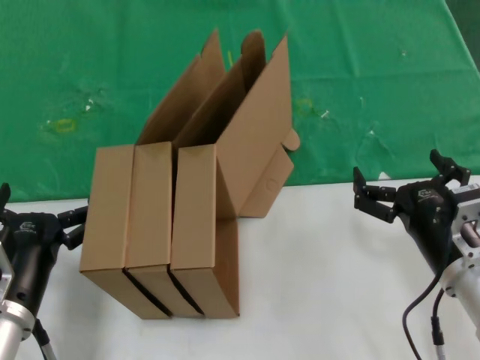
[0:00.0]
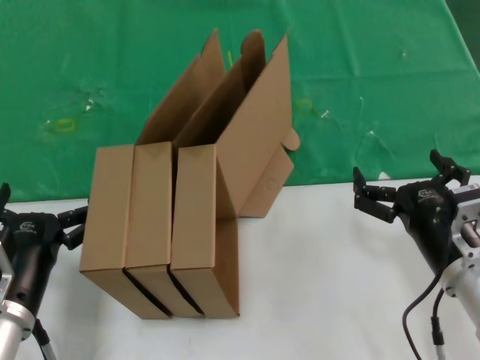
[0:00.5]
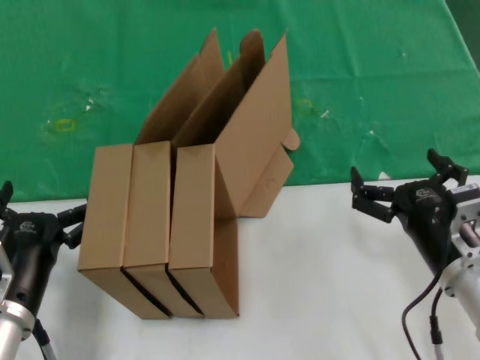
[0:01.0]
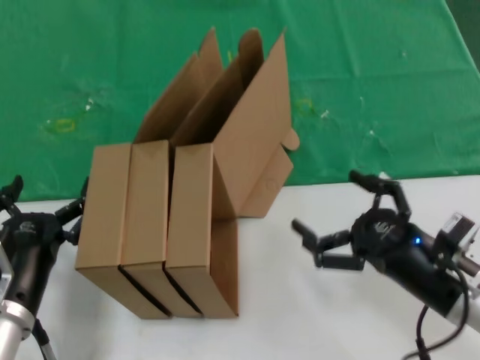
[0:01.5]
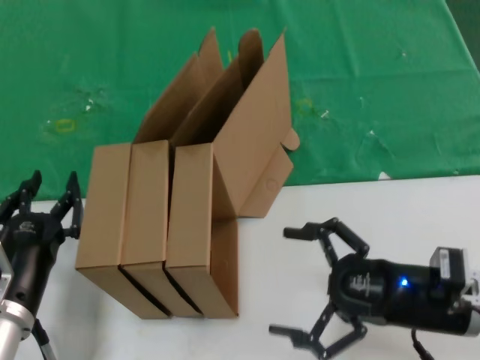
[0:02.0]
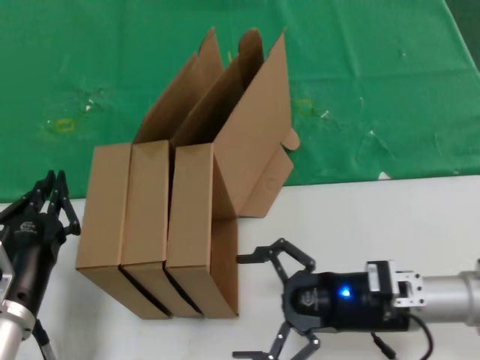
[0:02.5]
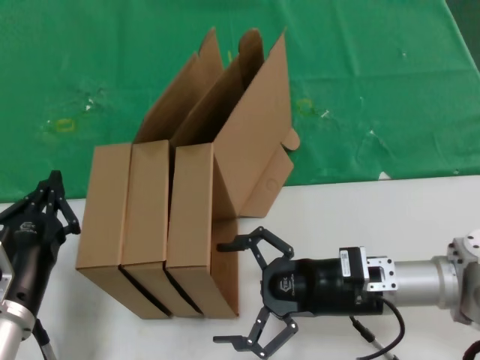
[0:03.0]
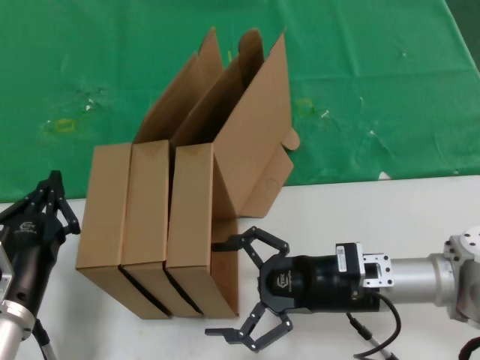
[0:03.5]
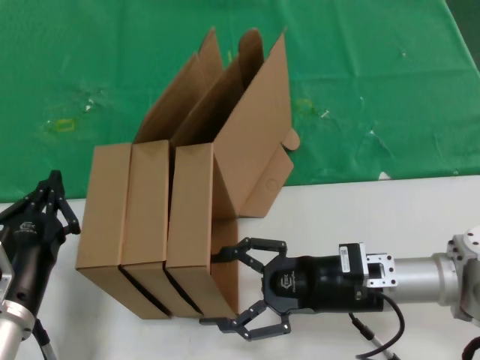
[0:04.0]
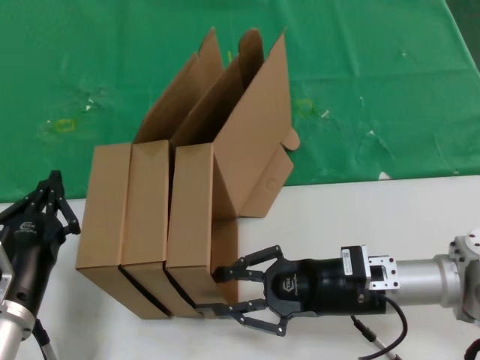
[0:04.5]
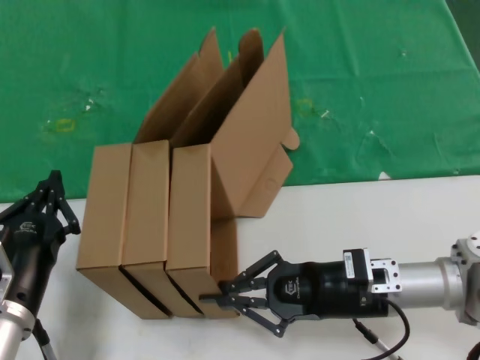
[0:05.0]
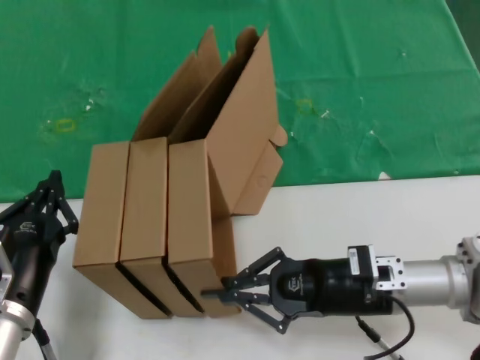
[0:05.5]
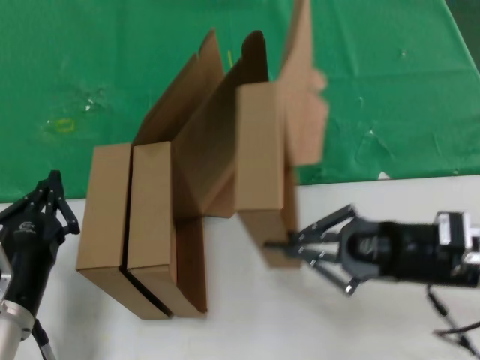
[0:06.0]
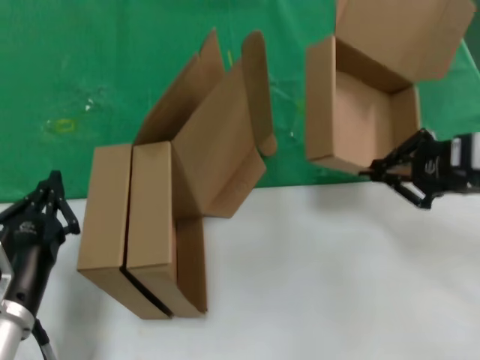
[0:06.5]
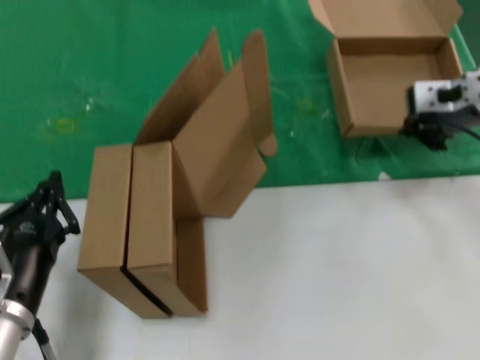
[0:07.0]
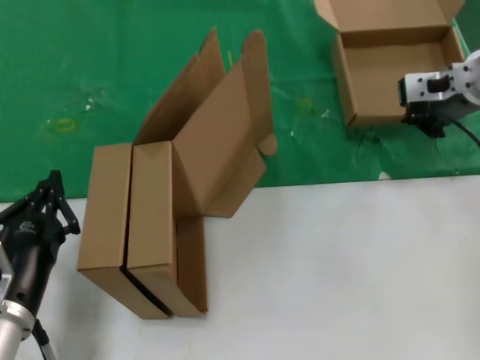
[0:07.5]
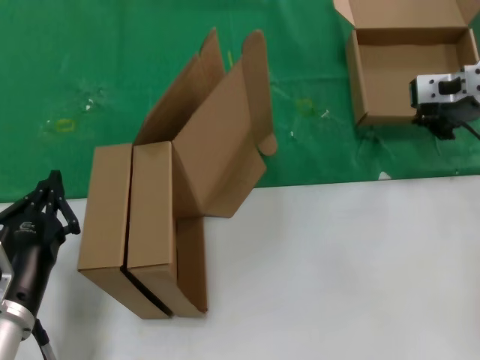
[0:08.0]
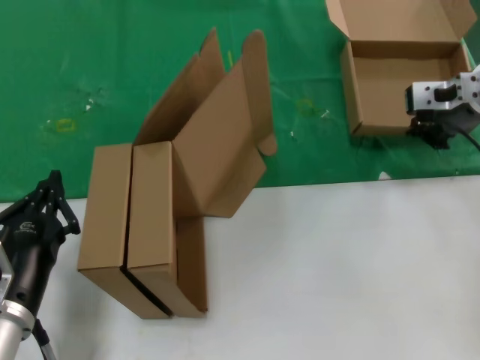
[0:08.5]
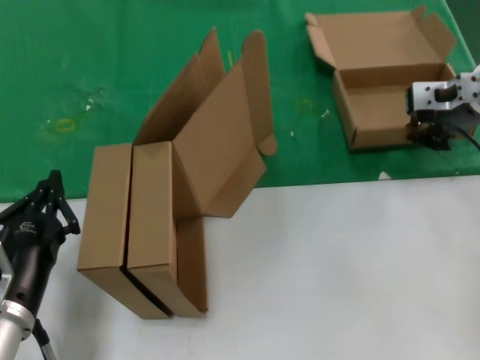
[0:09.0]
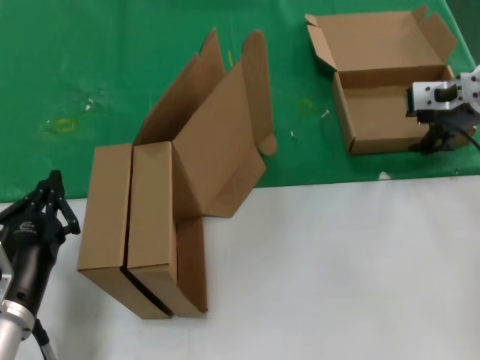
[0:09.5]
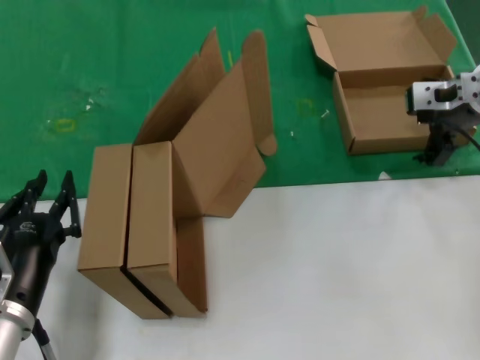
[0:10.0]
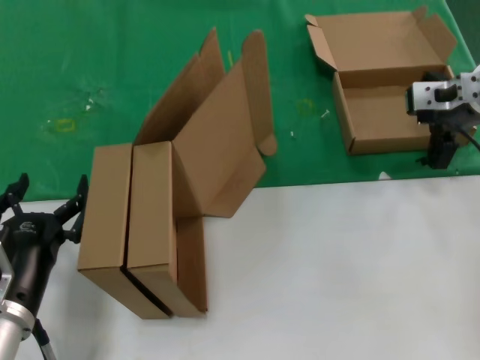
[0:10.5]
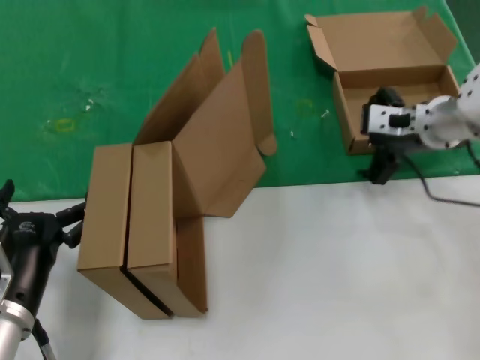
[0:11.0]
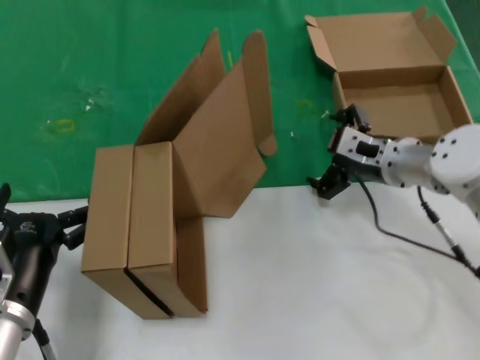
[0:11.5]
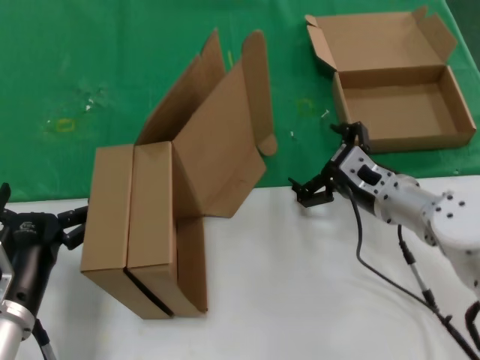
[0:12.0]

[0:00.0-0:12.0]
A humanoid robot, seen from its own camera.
Task of the whole recording: pick up the paper box and put it at the back.
Step, 0:00.0 to 0:05.0: Grasp the paper box.
Step, 0:05.5 to 0:09.0: Place the paper box on the table.
0:02.0 to 0:04.0: The right hand goes approximately 10 cm forward and to the left.
0:04.0 to 0:06.0: The right hand travels to the right and upward by roughly 10 cm.
0:06.0 to 0:08.0: The right hand travels forward and upward by approximately 25 cm.
0:08.0 to 0:10.0: Neither hand changes place.
0:10.0 to 0:12.0: The right hand is displaced downward, to the left and backward by some 20 cm.

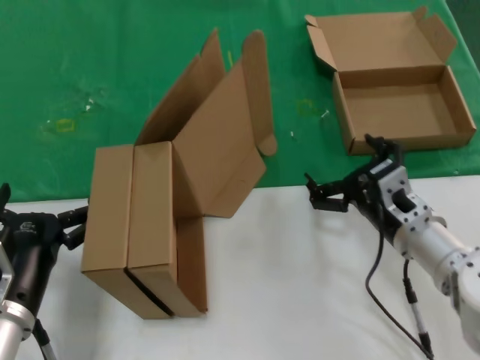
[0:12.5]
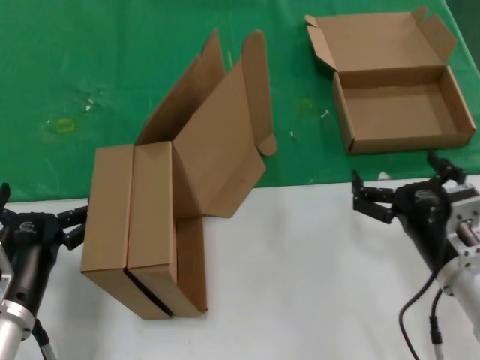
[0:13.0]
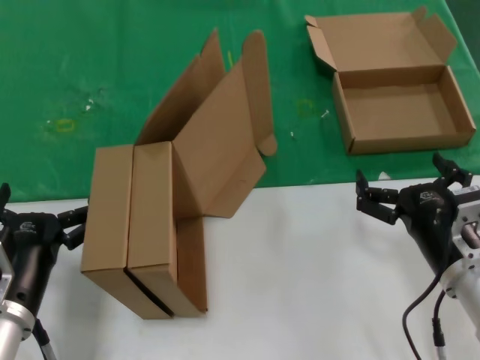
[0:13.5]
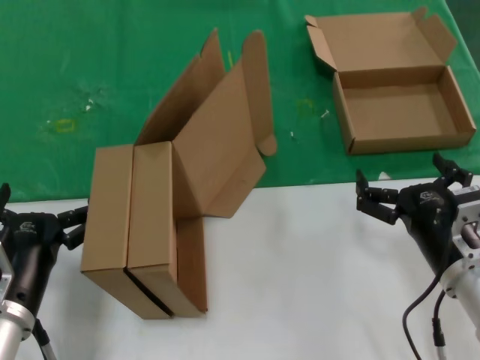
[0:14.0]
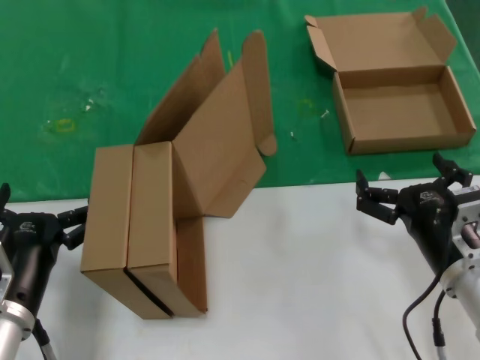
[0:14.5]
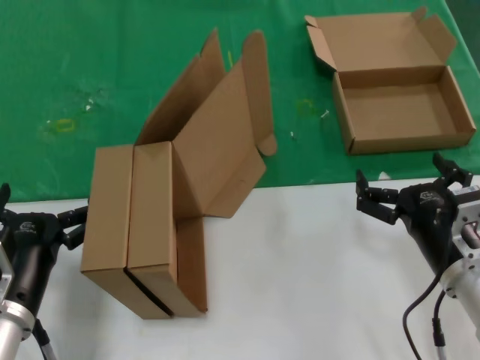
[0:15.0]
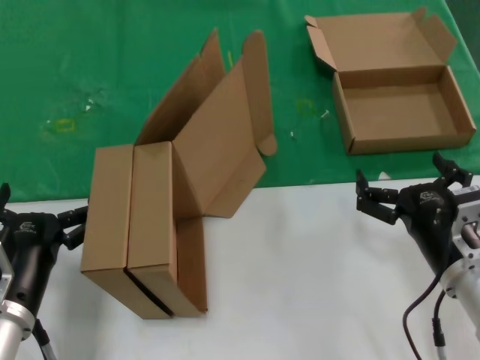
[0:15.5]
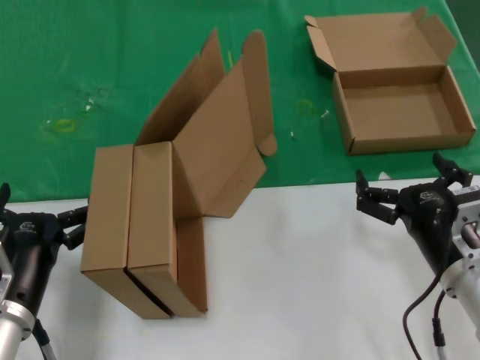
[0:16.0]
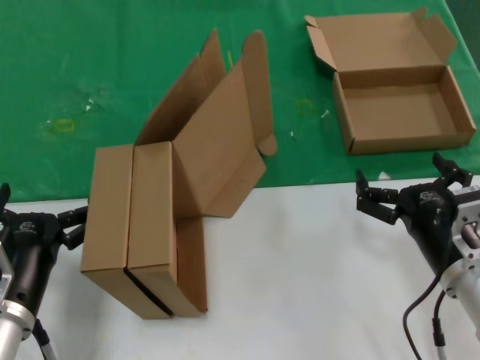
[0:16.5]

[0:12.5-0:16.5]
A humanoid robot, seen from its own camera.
Task of the whole recording: pick up the paper box and put it at the back.
0:12.5 to 0:14.5: The right hand travels backward by some 10 cm.
0:14.5 to 0:16.5: Both hands stay about where they are.
